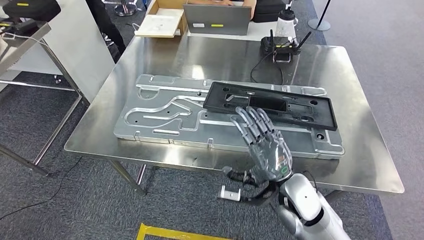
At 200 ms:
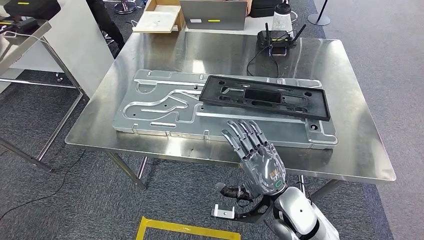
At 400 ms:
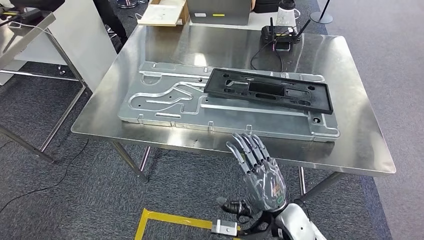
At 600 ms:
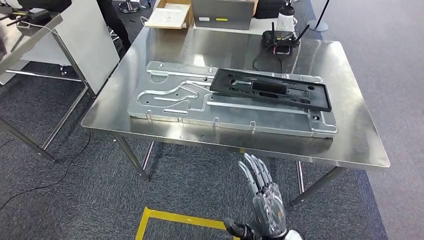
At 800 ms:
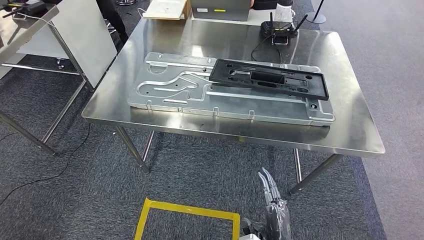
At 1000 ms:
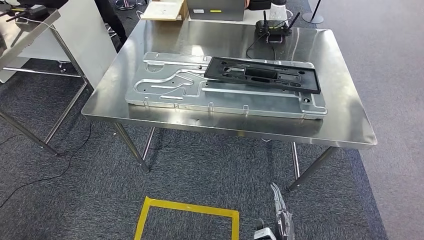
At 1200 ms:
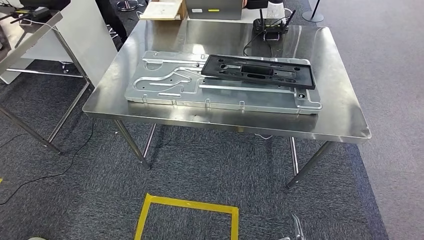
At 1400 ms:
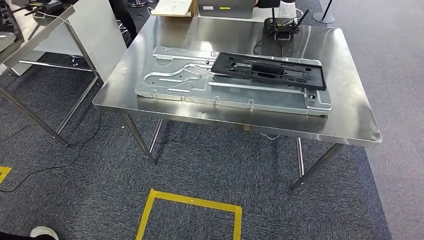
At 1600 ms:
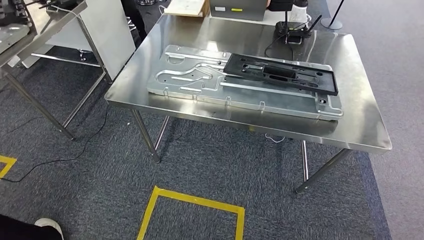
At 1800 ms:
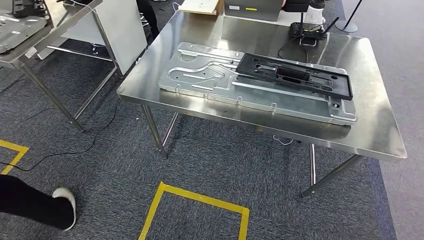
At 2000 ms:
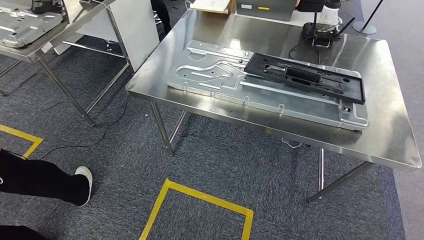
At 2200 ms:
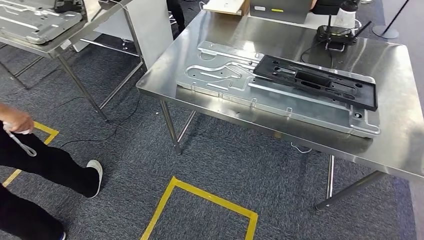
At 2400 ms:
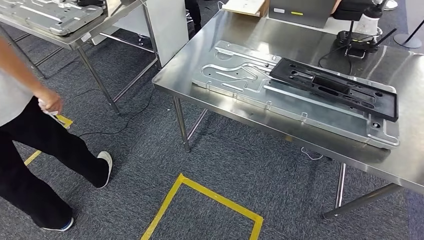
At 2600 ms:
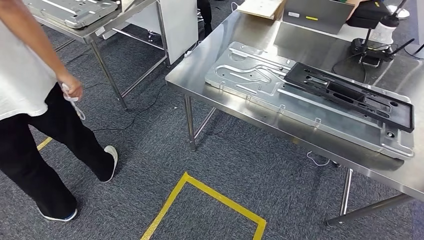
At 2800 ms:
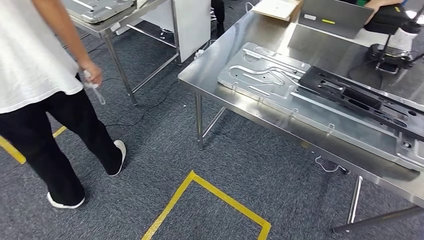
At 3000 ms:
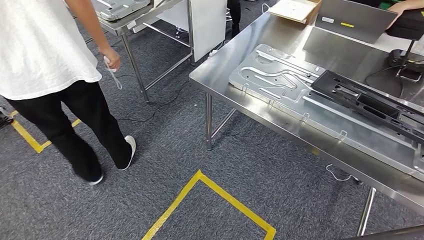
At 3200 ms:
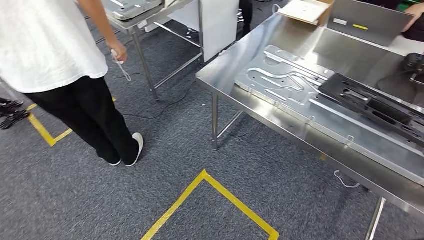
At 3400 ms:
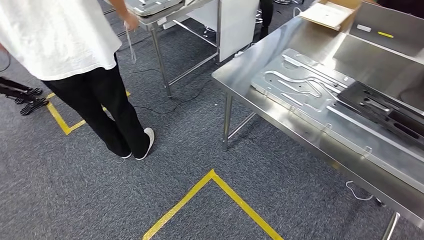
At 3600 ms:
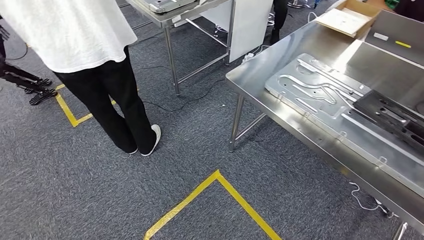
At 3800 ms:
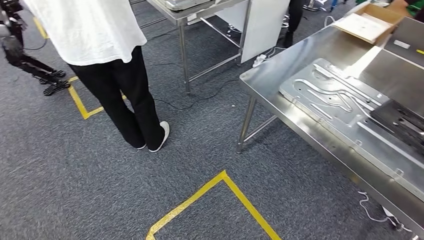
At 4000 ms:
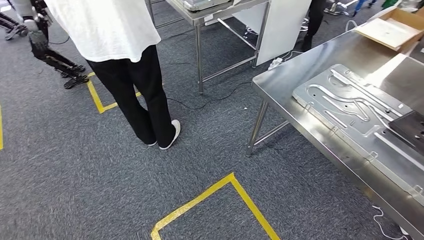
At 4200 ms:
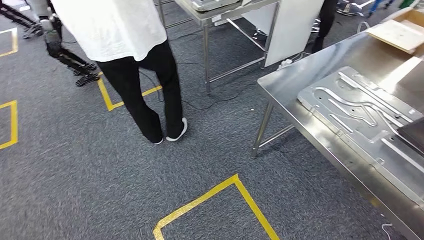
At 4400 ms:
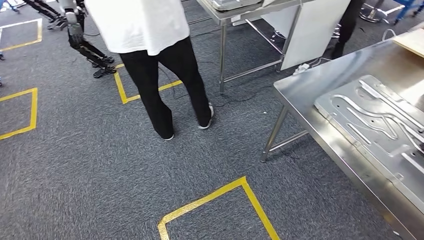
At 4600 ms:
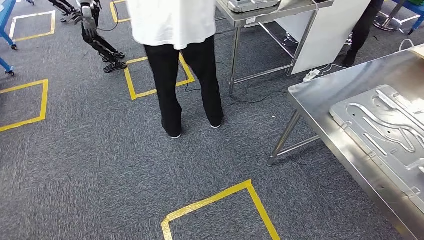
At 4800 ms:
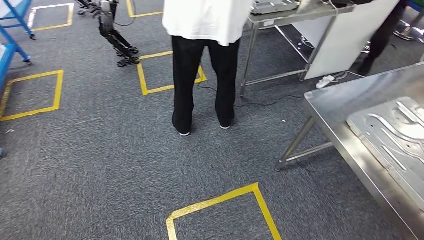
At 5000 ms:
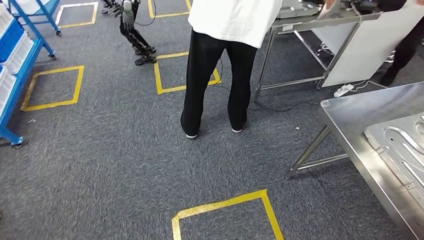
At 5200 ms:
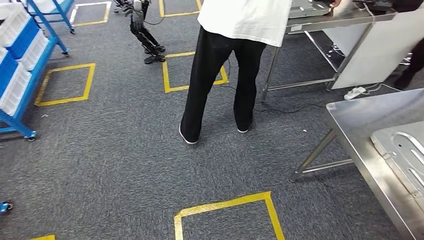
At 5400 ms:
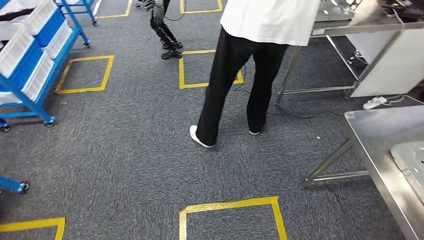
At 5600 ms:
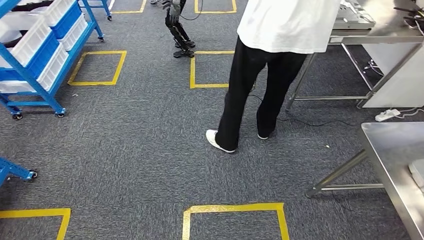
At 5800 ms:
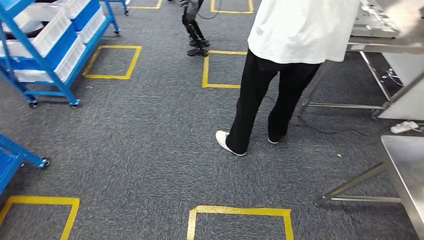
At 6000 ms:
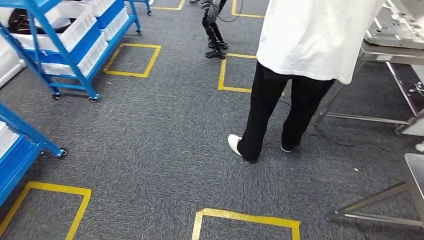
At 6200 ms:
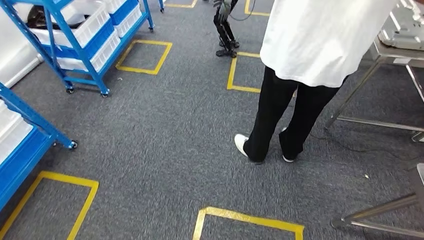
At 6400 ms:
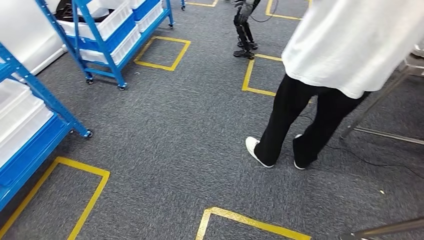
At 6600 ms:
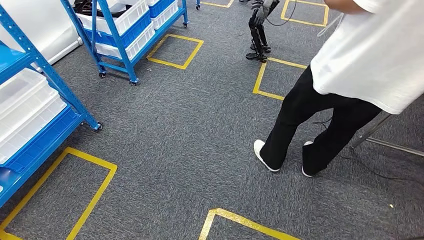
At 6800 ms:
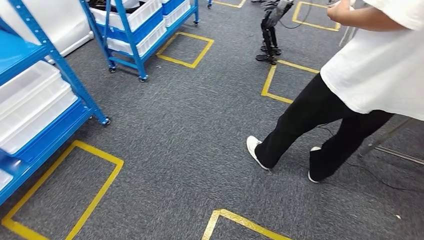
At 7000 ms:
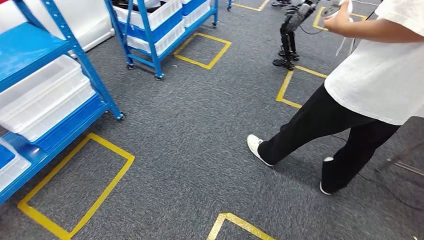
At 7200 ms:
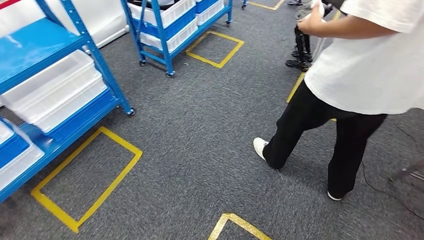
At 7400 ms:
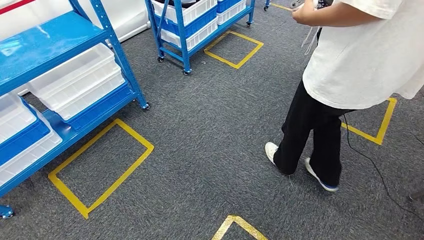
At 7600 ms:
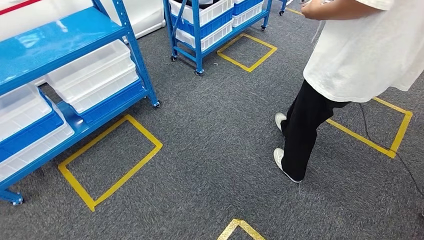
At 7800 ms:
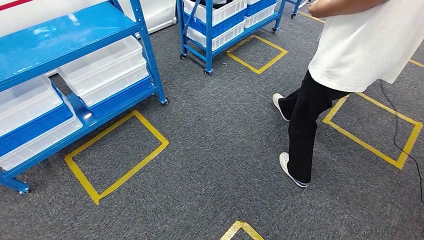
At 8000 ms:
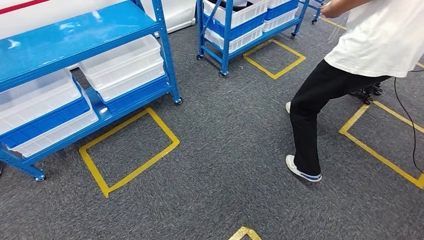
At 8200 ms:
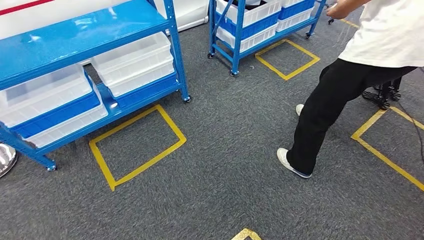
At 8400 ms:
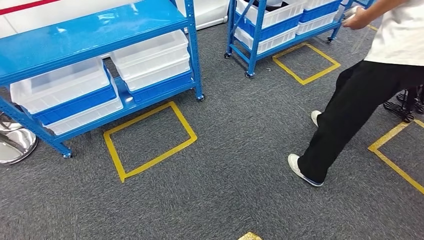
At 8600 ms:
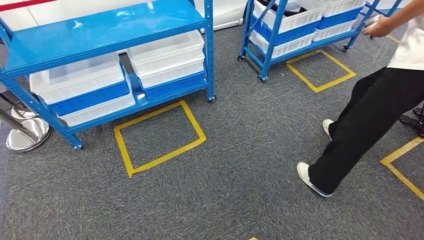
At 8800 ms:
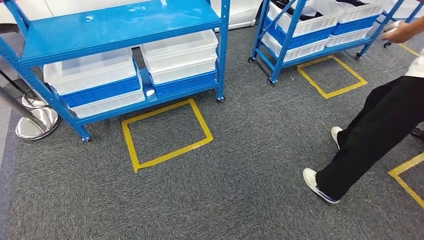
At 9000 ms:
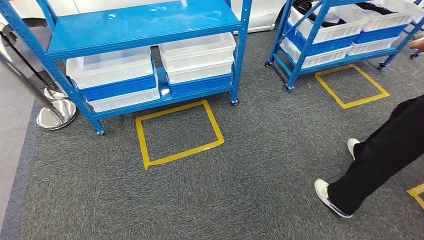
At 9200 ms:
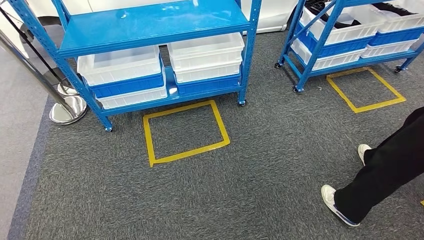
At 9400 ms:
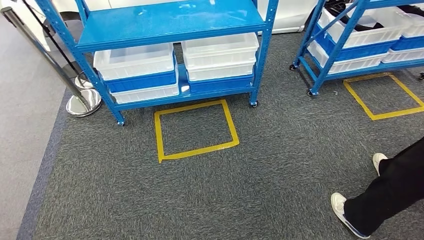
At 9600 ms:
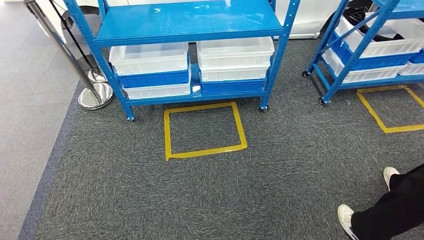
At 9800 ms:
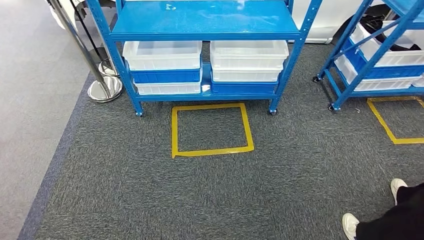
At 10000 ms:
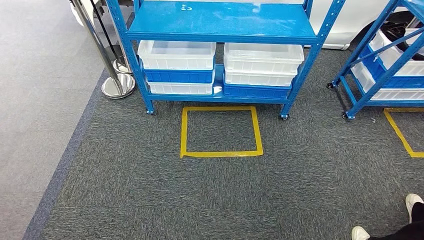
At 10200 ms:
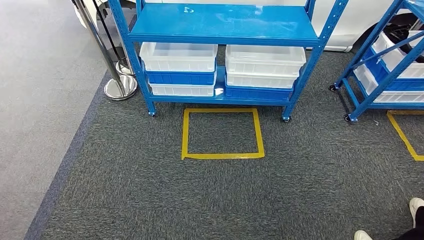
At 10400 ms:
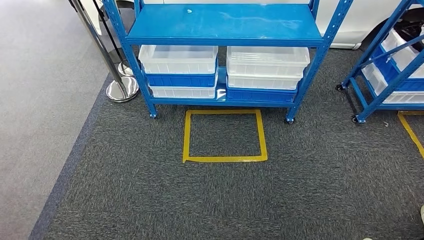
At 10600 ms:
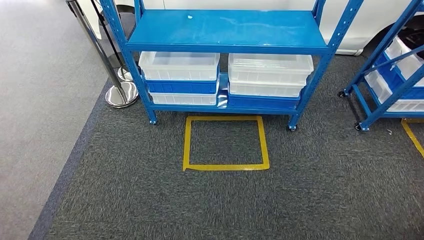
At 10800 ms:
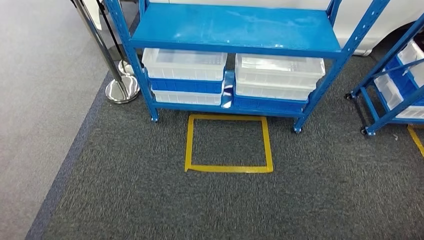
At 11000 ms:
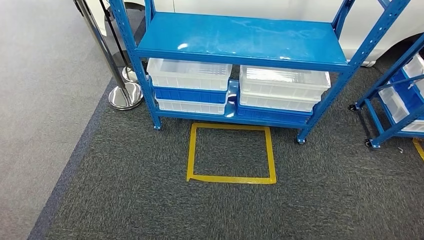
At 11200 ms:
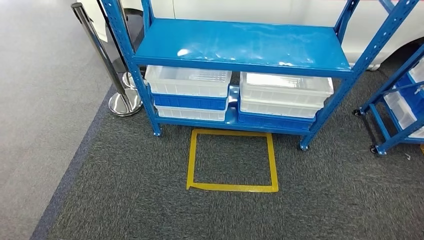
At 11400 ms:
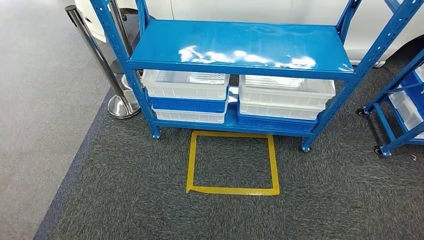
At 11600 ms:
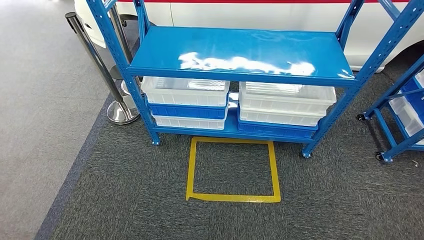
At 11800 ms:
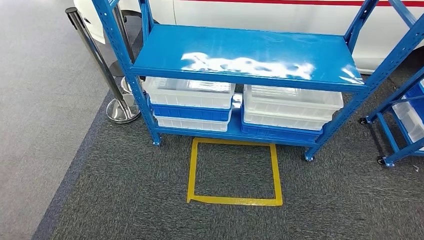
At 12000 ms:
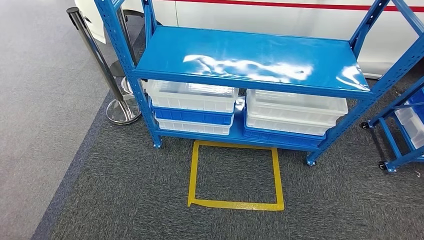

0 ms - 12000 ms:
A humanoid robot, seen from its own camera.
Step, 0 ms - 2400 ms: Insert the large material into the corresponding slot on the workbench.

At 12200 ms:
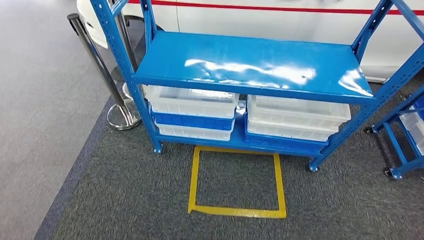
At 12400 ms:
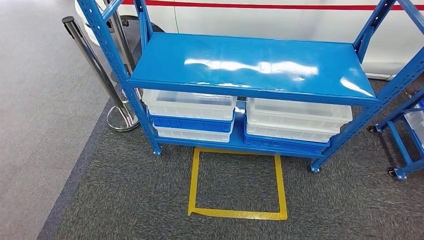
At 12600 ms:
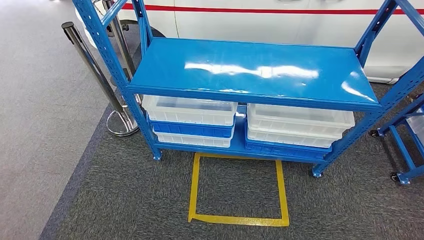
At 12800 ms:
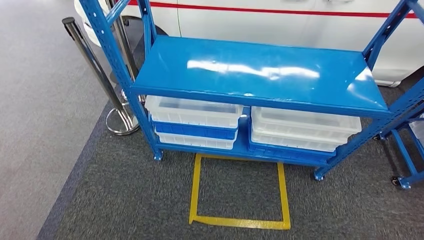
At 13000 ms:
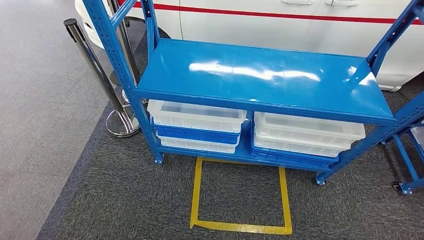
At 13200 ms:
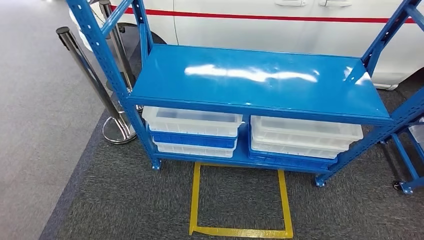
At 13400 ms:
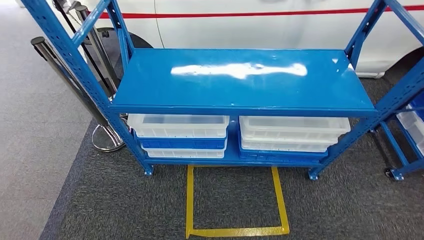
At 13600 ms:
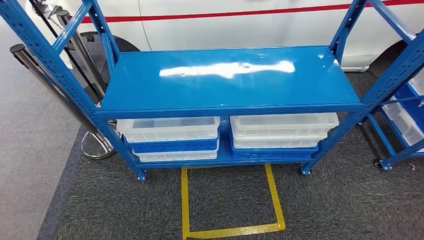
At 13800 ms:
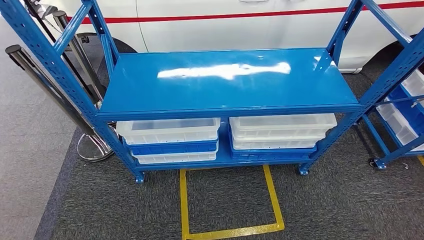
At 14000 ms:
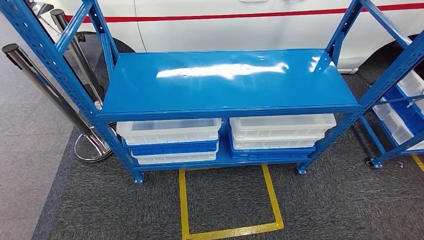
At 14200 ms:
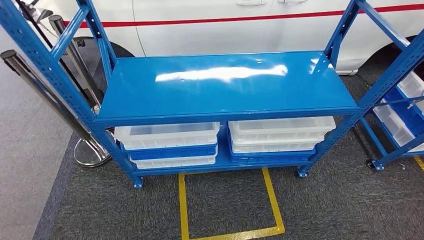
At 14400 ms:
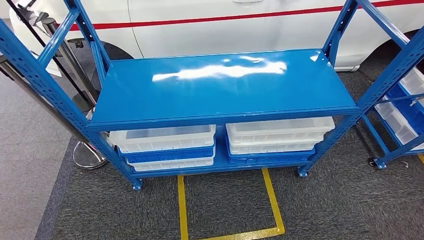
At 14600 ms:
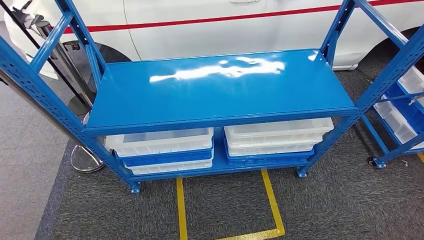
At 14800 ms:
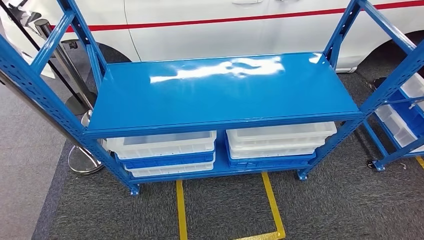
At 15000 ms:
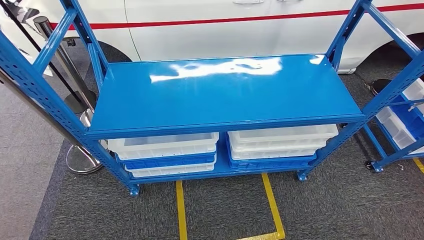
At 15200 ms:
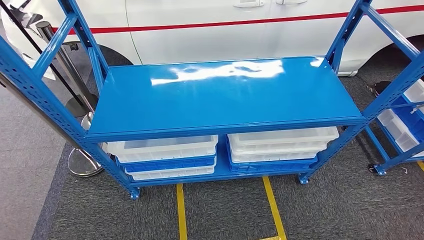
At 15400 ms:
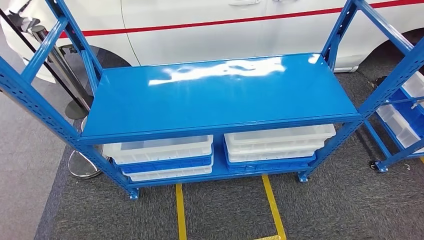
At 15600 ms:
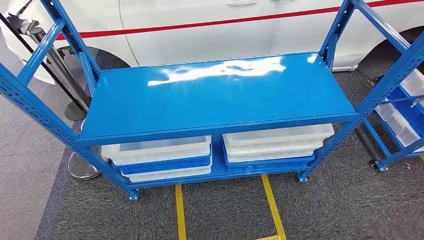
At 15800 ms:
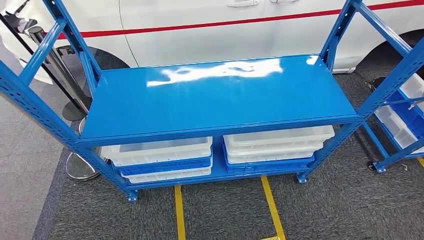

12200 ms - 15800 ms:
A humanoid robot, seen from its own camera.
Step, 12200 ms - 15800 ms: Move to the initial position of the shelf.
